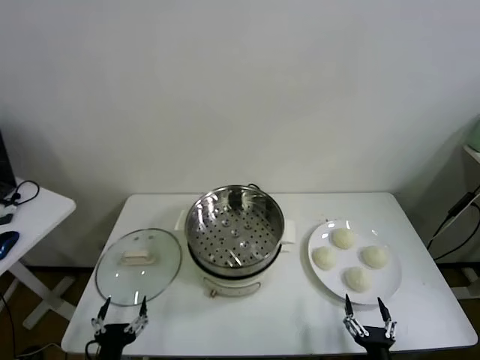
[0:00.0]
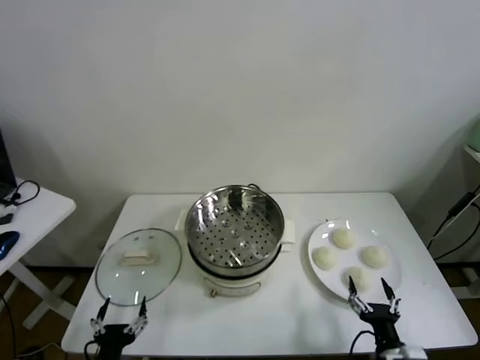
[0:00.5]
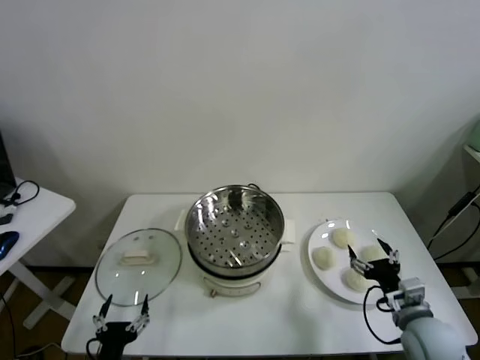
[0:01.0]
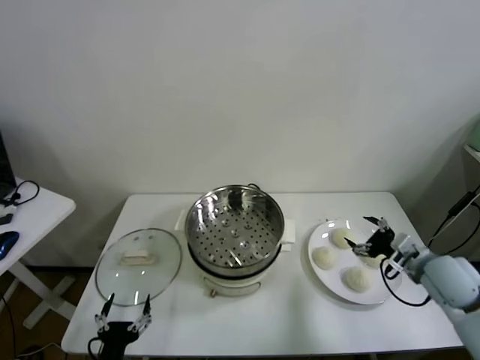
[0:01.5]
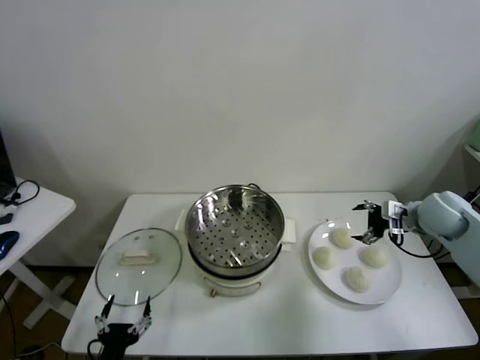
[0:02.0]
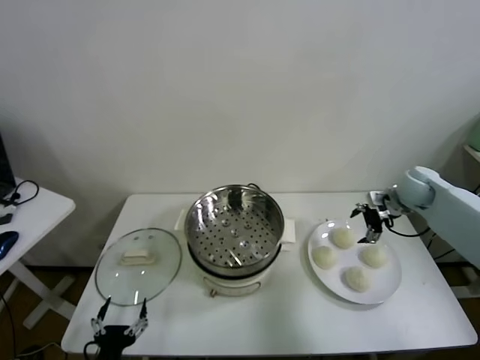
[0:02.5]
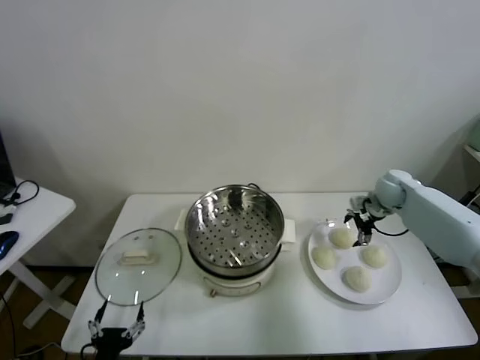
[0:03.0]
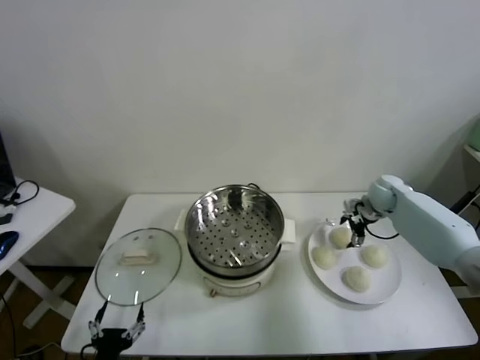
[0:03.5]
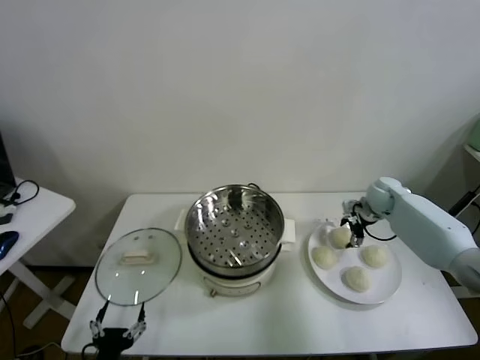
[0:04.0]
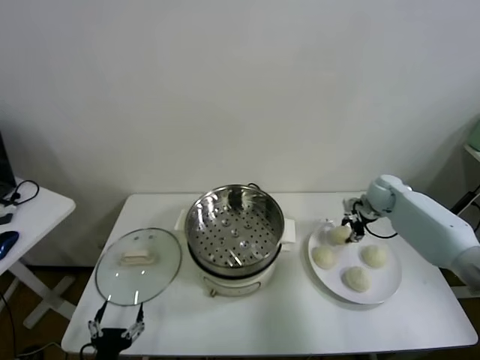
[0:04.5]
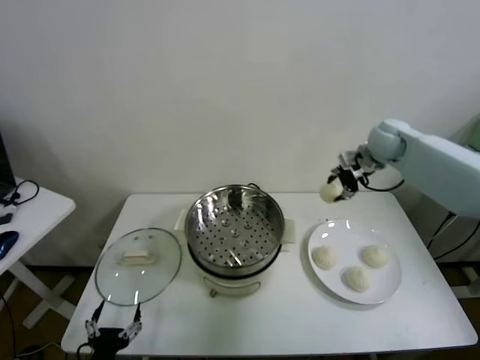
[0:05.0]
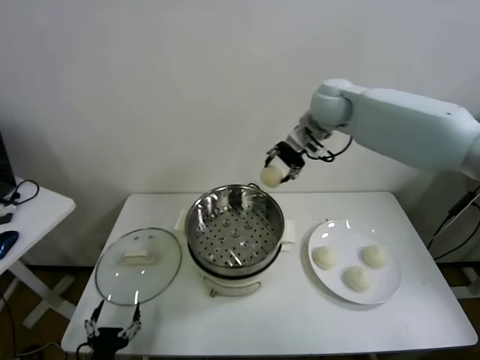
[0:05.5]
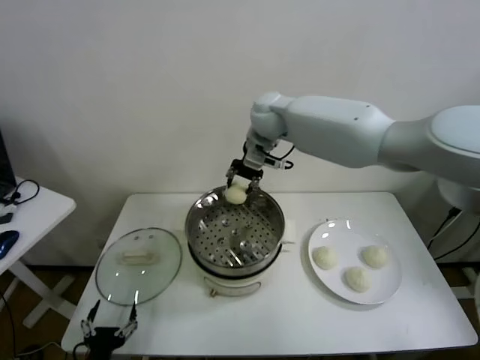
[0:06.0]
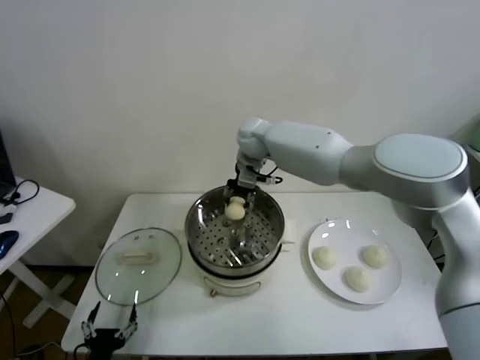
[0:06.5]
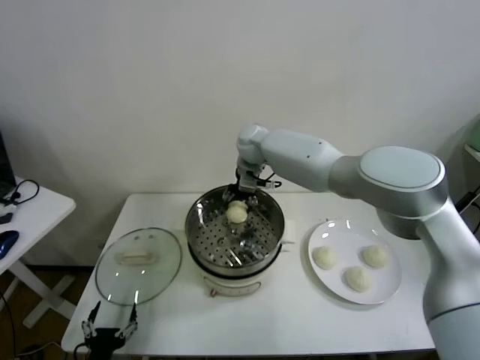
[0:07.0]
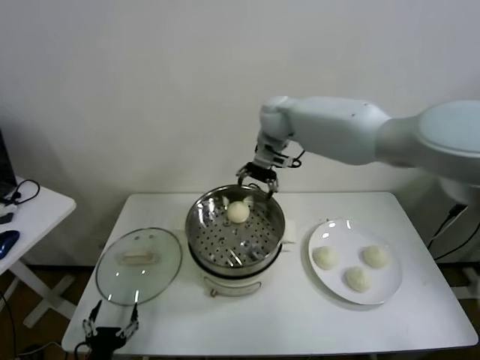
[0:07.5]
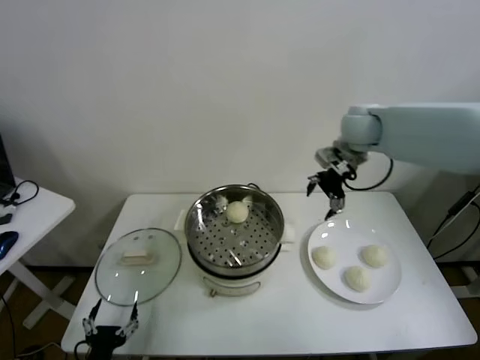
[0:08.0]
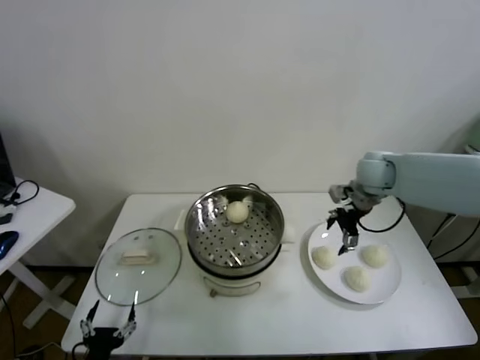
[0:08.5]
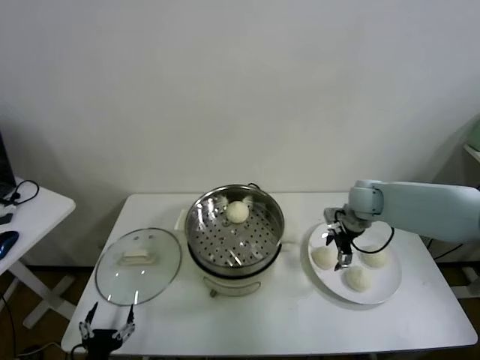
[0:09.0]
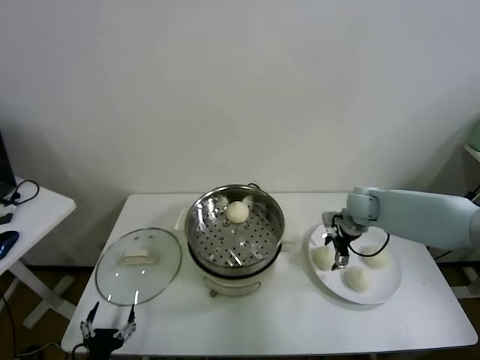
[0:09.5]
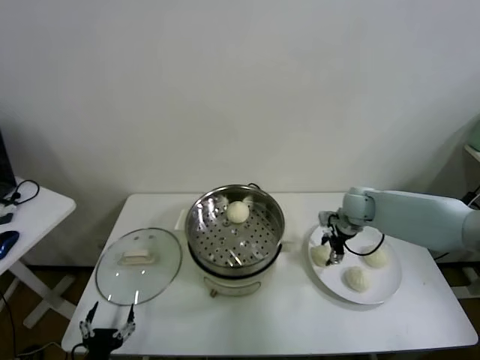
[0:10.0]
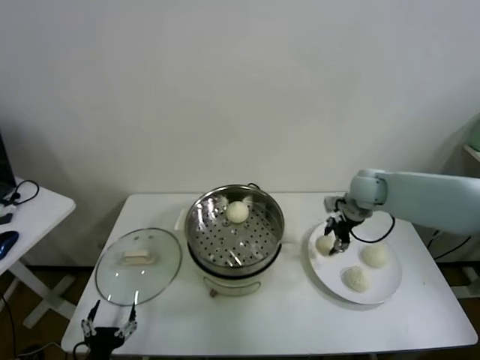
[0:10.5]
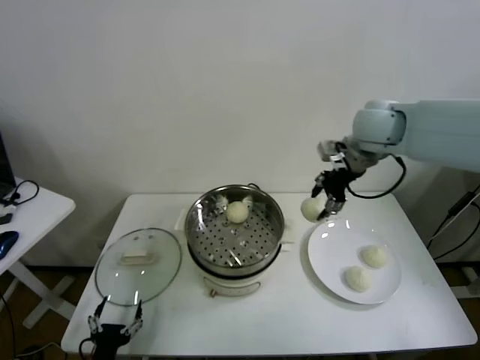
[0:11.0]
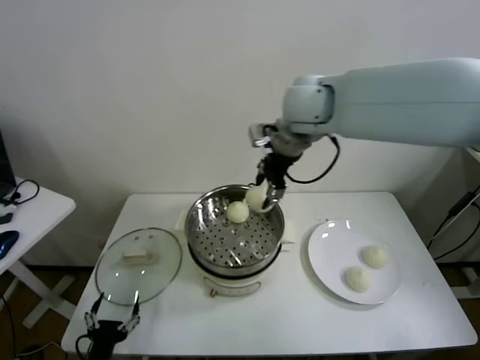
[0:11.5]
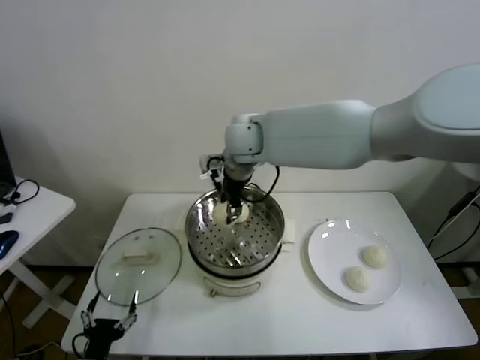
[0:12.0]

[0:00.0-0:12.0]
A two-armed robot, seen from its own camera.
Task of the whole recording: take steamed baozi put them in steamer.
Step, 0.0 to 4.0 s: Grasp the baozi in the plate with right gripper.
Step, 4.5 to 7.0 s: Place the baozi on the steamer with right gripper.
Step, 7.5 to 10.0 s: Grasp the baozi in the plate with right gripper.
2.0 to 4.0 s: The right gripper goes roughly 15 cm forward and downward.
4.0 to 6.0 s: The right gripper goes about 40 cm to the left and upward, and closes.
6.0 to 8.0 s: The right gripper travels to the right by roughly 20 cm, and opens up.
8.0 to 10.0 s: The right gripper travels downward by some 20 cm, and closes.
10.0 to 12.0 s: The right gripper heads to the left and upward, covering about 35 cm.

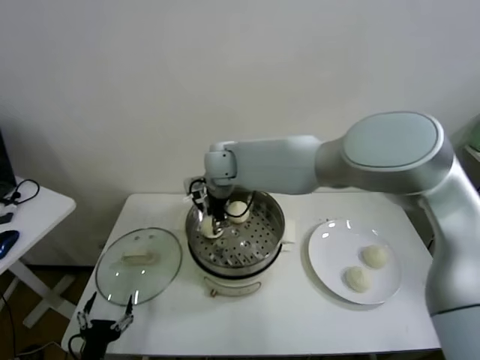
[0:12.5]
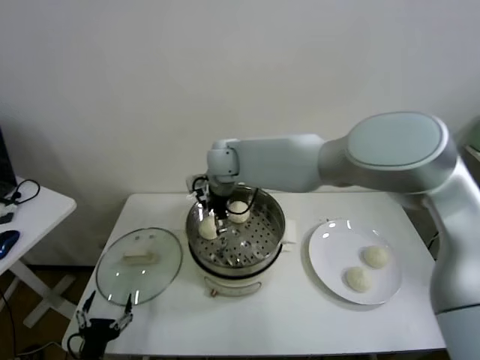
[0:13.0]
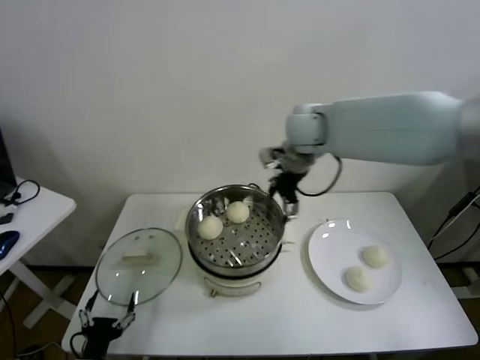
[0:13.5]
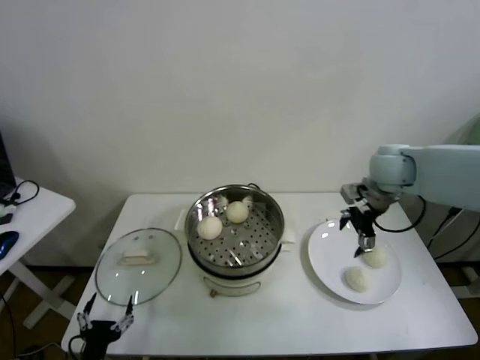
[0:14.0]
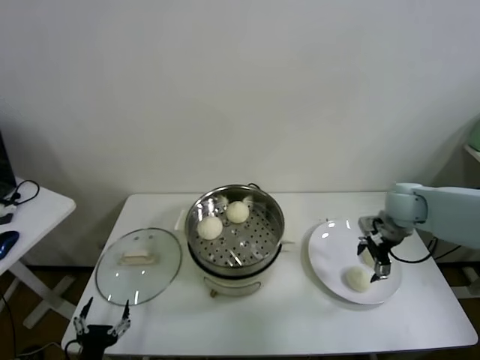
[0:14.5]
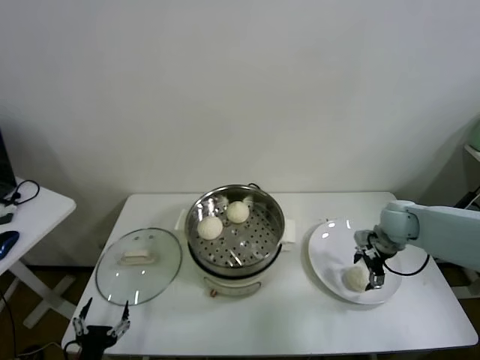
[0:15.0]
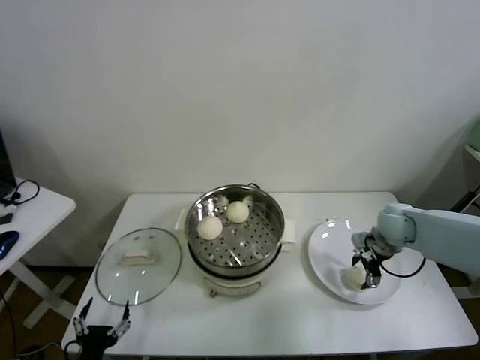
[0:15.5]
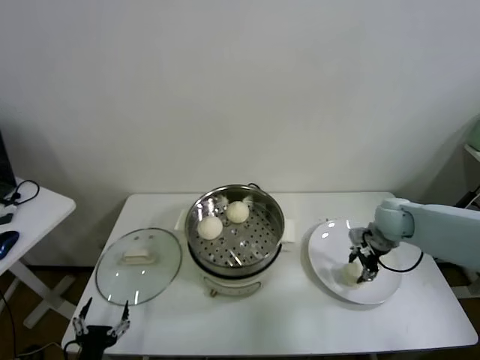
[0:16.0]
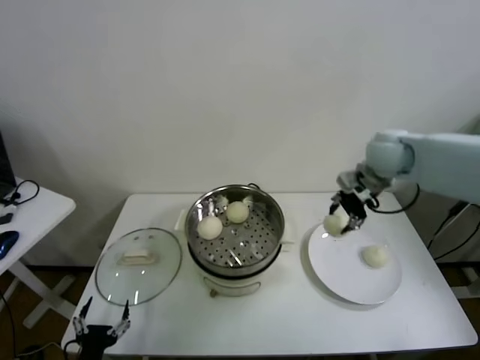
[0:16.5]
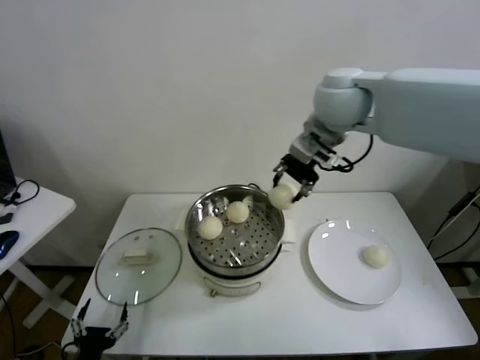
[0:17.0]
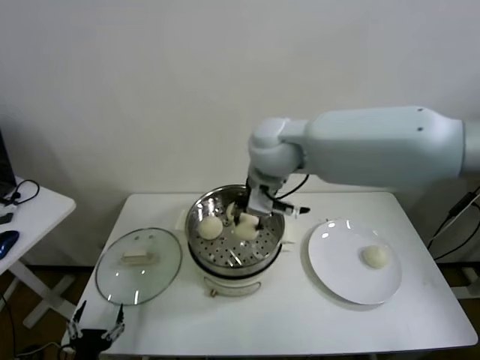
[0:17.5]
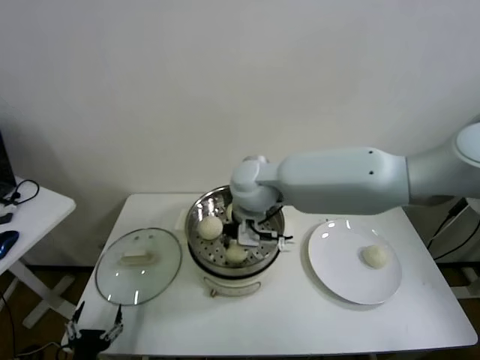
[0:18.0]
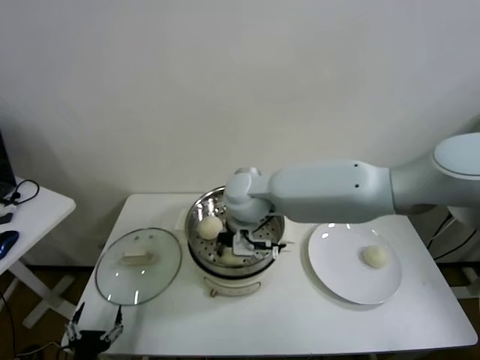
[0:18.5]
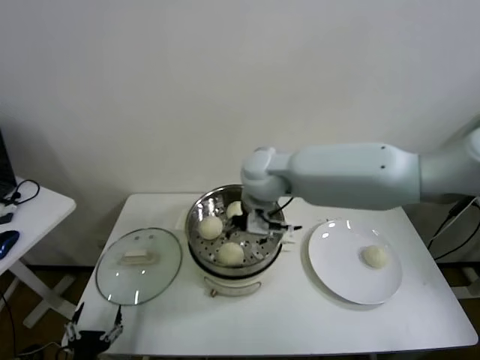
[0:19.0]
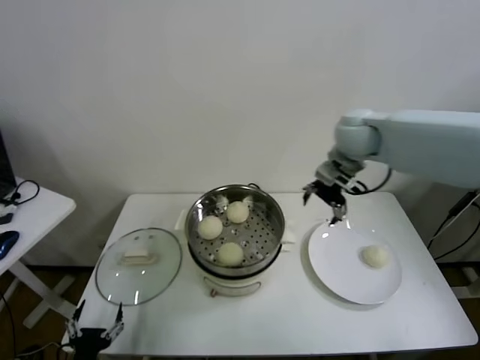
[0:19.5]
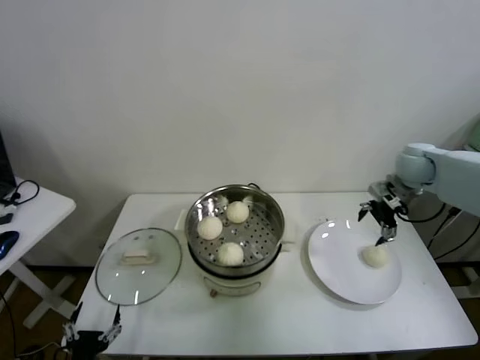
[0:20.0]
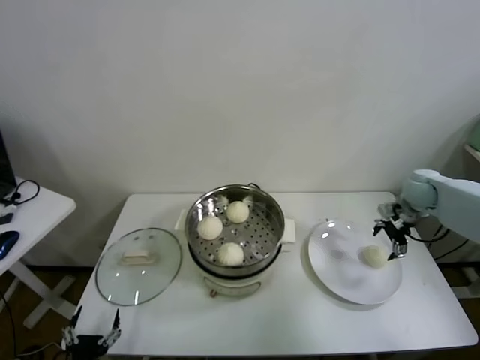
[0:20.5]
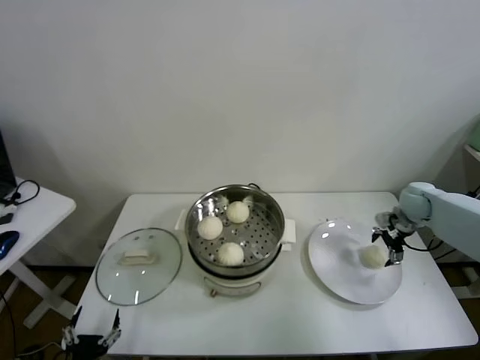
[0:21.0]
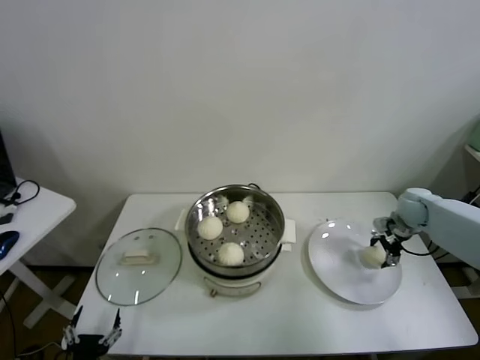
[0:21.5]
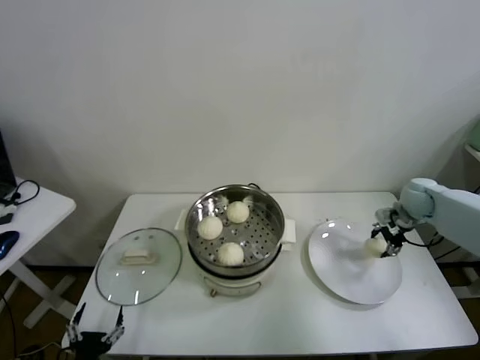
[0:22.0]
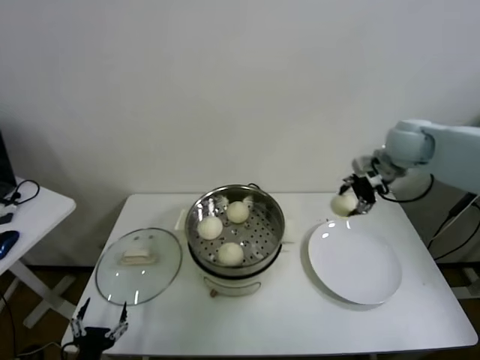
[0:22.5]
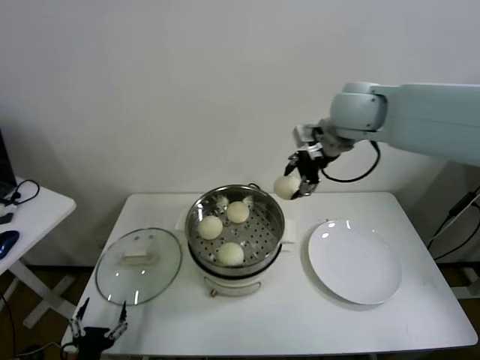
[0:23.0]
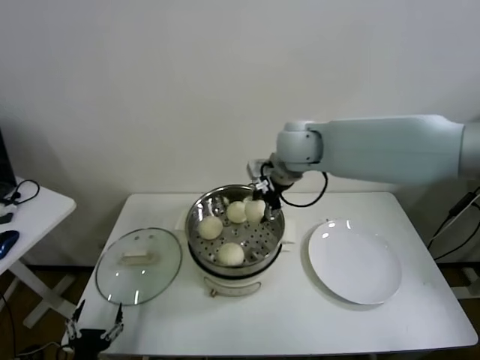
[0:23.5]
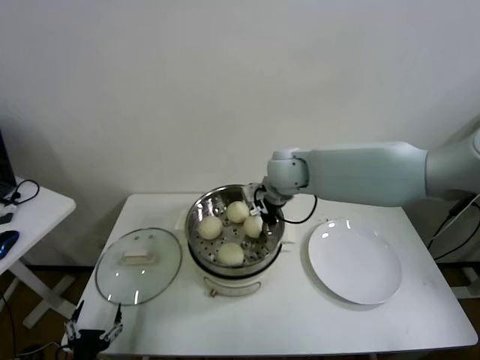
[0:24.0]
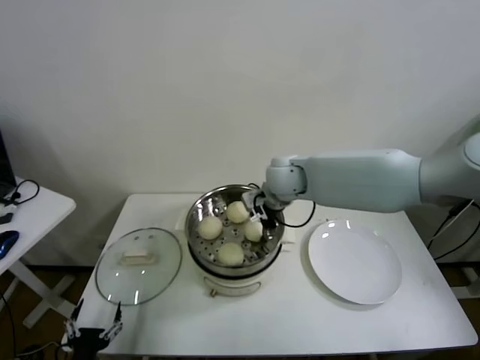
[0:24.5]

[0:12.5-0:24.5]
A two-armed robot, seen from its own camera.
Task of the whole recording: take steamed baozi put them in steamer.
Step, 13.5 to 15.5 s: Grasp the baozi in the plate with right gripper.
Step, 16.0 to 18.5 s: Place the baozi on the steamer with right gripper.
Step, 19.0 to 21.5 s: Grasp the baozi in the plate with right gripper.
12.5 to 14.5 s: The right gripper heads to the right, covering approximately 40 cm, and opens.
14.5 to 16.5 s: The right gripper goes roughly 15 cm upward and to the left, and closes its fingers.
16.5 to 18.5 s: The right gripper is displaced to the left by about 30 cm.
18.5 to 20.5 s: The right gripper goes roughly 40 cm to the right, and opens.
20.5 to 22.5 s: The right gripper heads upward and to the left, covering about 20 cm, and closes its fingers.
22.5 to 24.5 s: The right gripper shifts roughly 25 cm to the left.

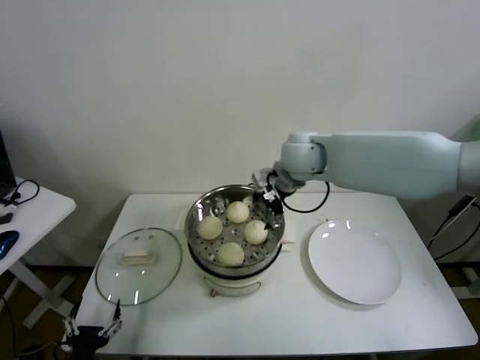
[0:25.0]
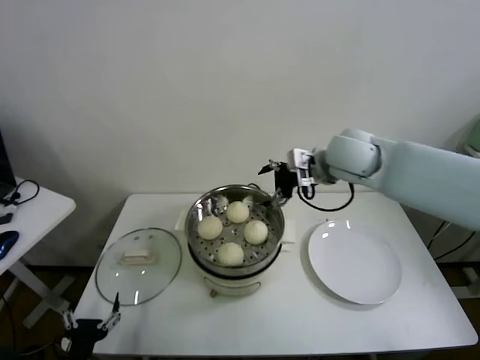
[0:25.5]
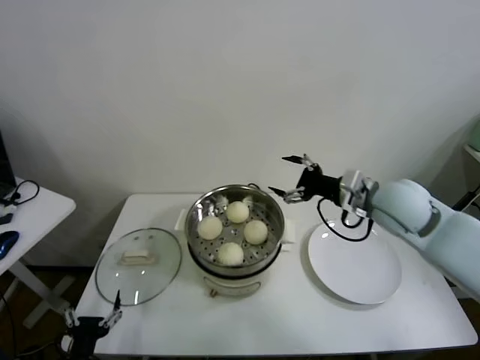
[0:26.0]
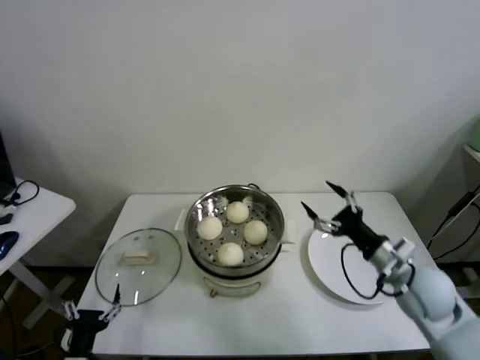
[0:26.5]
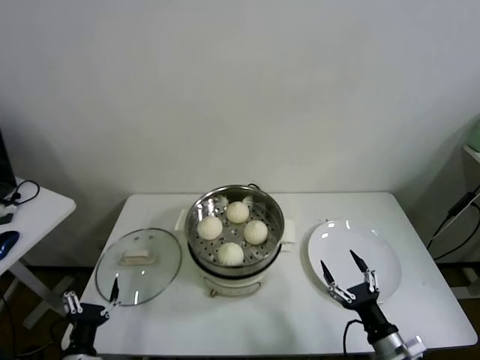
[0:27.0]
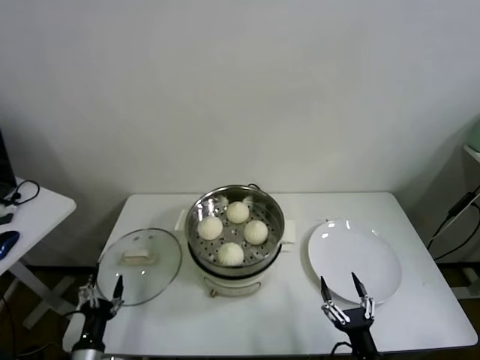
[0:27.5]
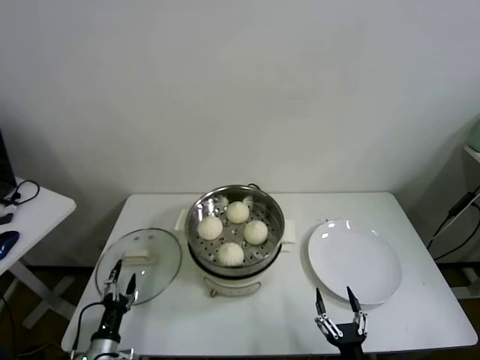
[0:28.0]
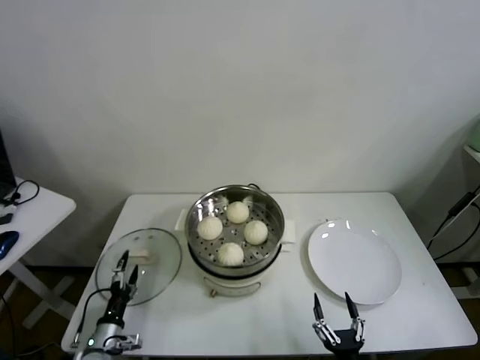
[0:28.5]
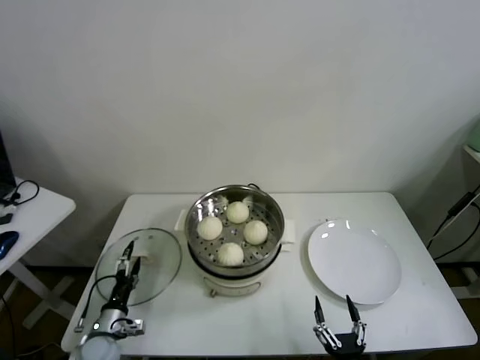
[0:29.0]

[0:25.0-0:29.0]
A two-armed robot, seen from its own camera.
Task of the whole recording: take steamed baozi put them in steamer.
25.0 to 27.0 s: The right gripper is displaced backward, downward and to the right by about 50 cm.
27.0 to 29.0 s: The right gripper goes some 15 cm backward, to the left and downward. The left gripper heads forward and downward, covering some 15 cm.
